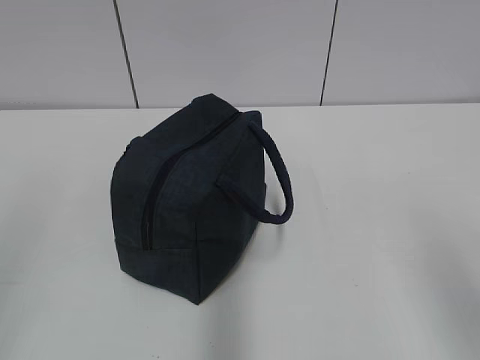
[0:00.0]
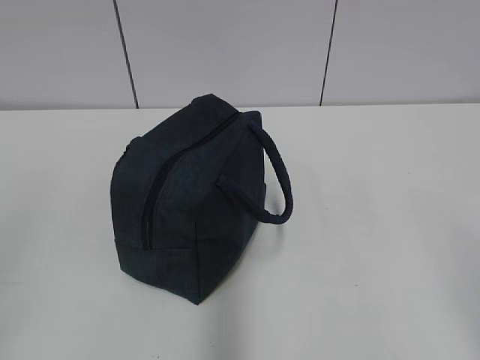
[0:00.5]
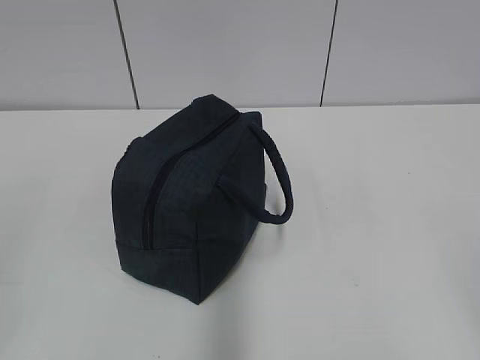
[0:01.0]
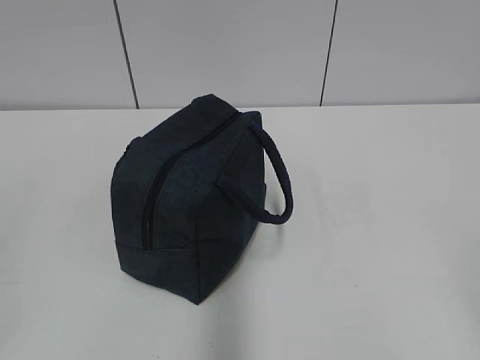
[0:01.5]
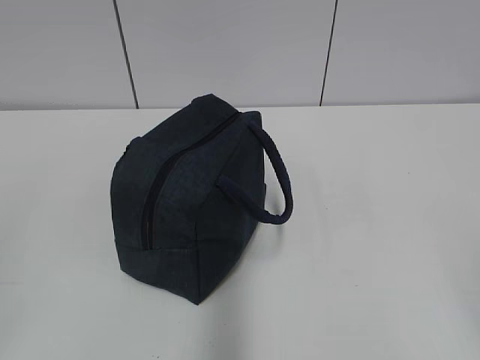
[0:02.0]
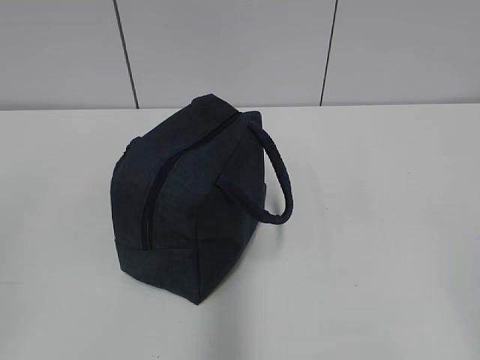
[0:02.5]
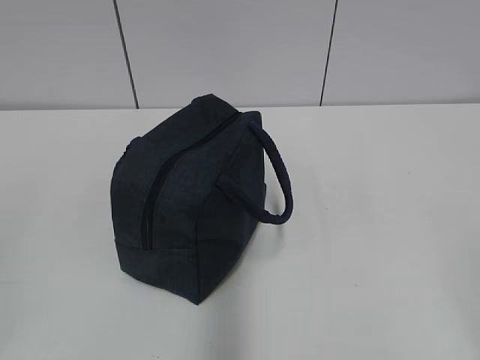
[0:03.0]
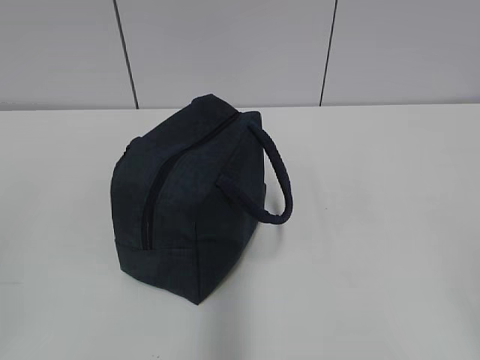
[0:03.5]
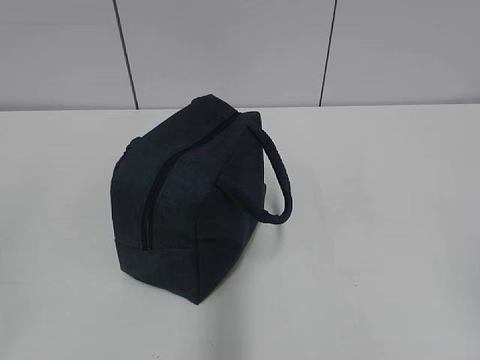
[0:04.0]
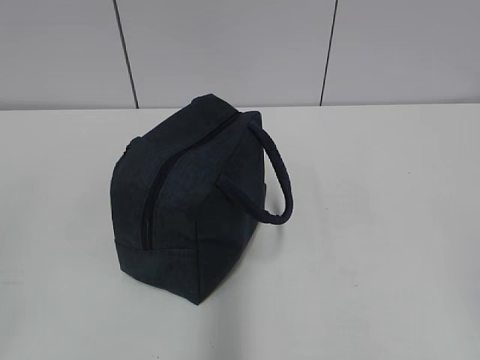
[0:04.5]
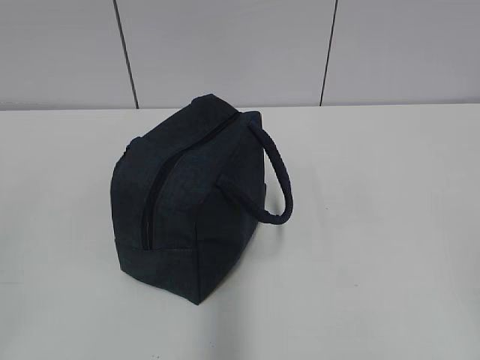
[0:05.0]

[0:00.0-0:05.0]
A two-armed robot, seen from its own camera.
0:00.0 to 0:02.5: The right gripper goes some 10 cm backward.

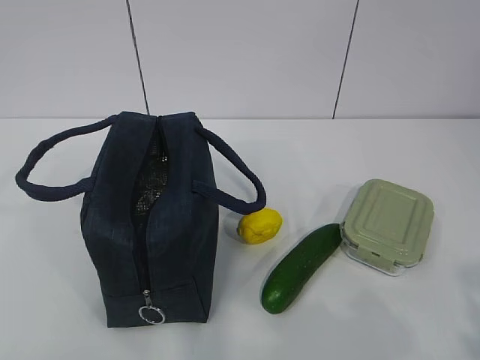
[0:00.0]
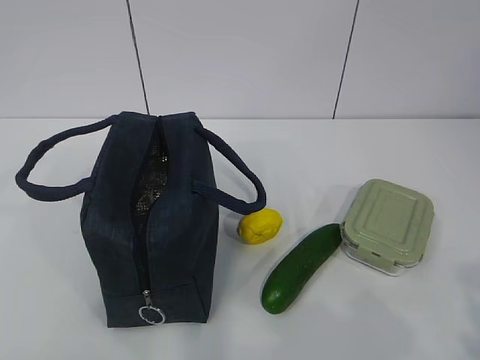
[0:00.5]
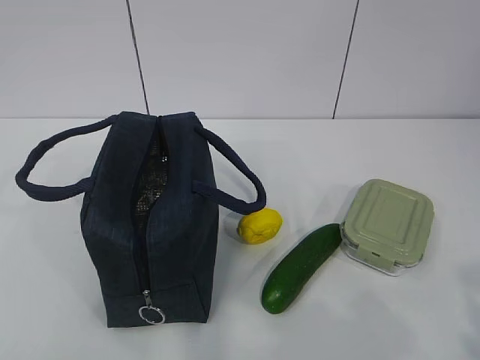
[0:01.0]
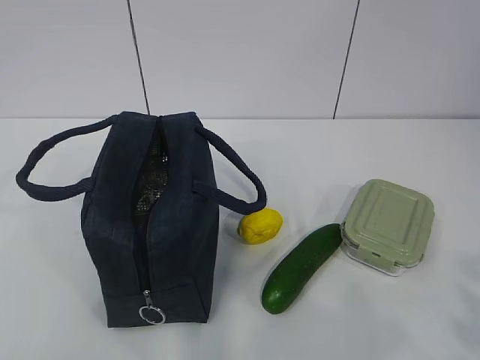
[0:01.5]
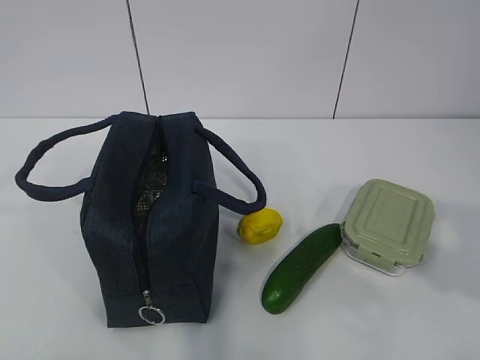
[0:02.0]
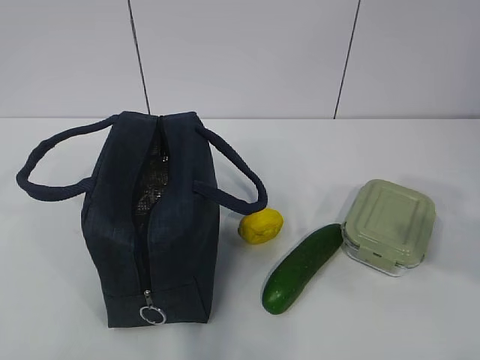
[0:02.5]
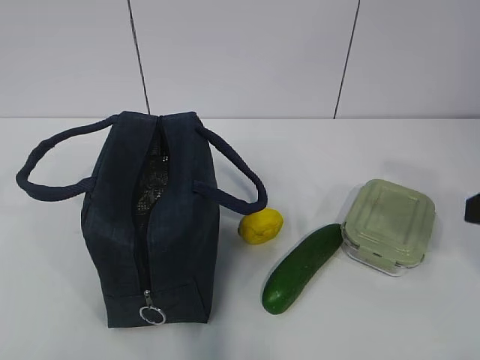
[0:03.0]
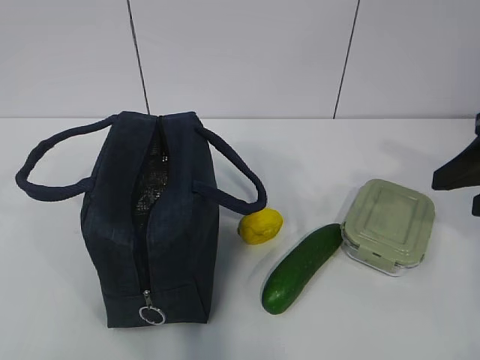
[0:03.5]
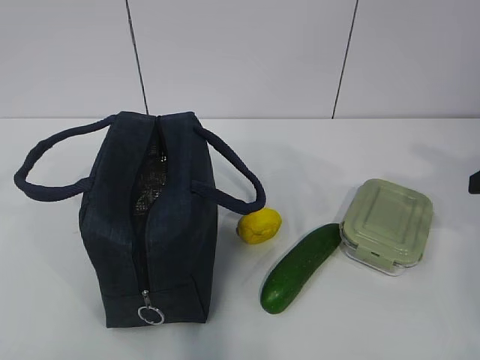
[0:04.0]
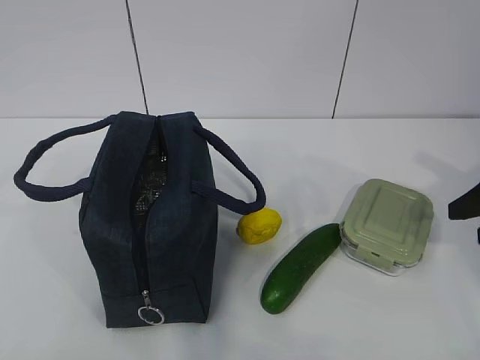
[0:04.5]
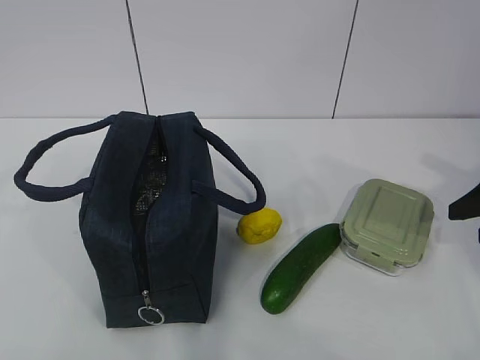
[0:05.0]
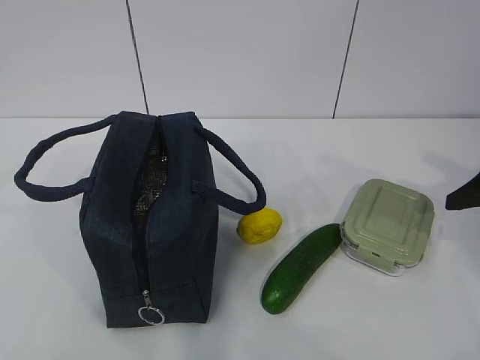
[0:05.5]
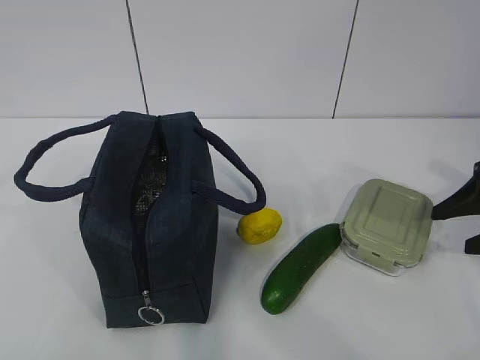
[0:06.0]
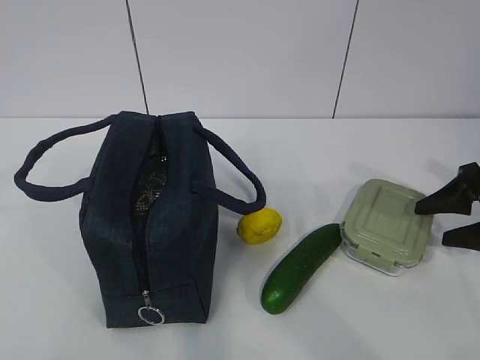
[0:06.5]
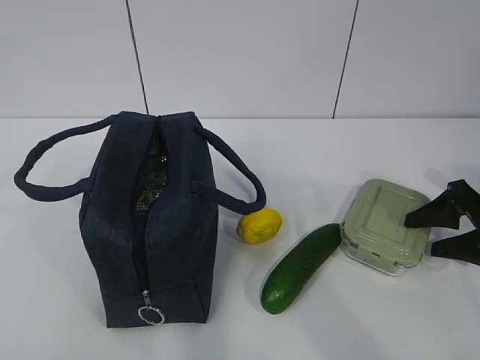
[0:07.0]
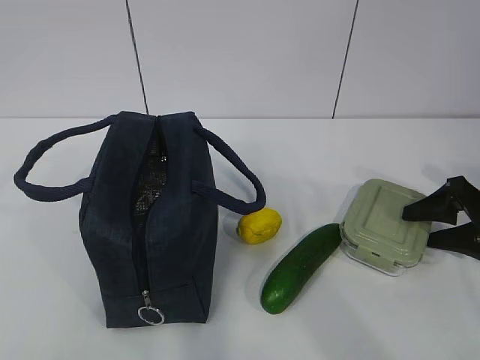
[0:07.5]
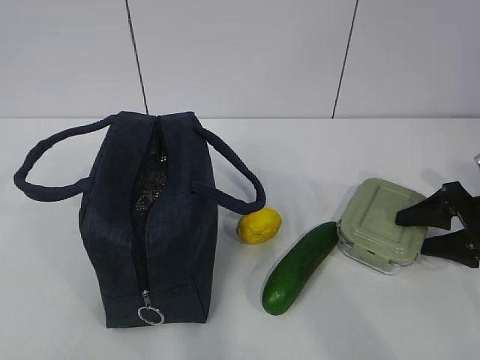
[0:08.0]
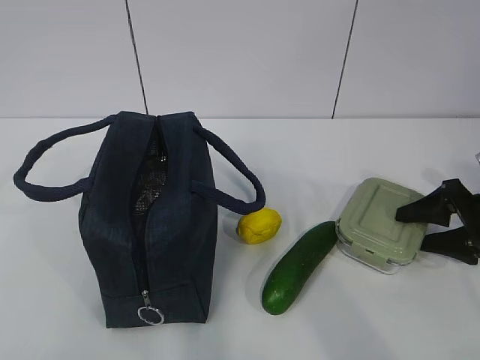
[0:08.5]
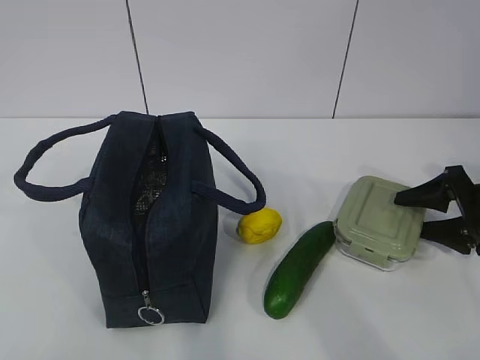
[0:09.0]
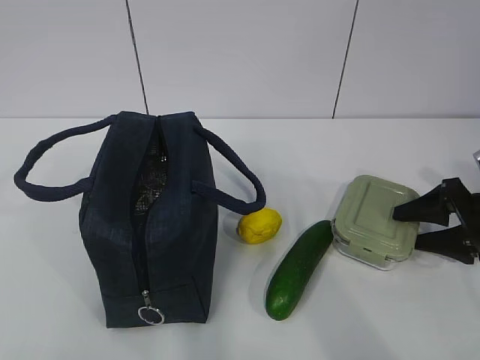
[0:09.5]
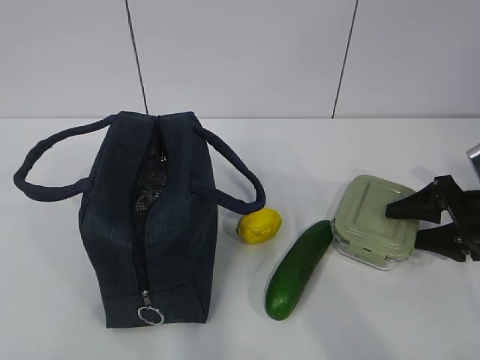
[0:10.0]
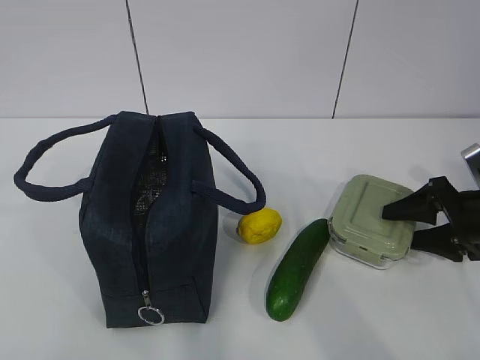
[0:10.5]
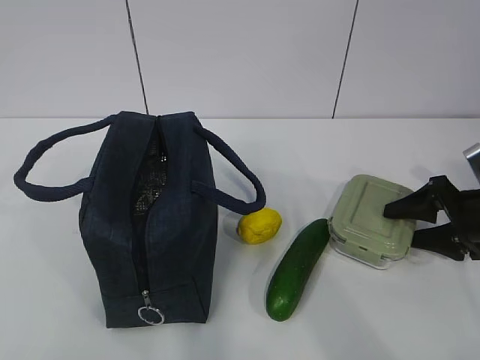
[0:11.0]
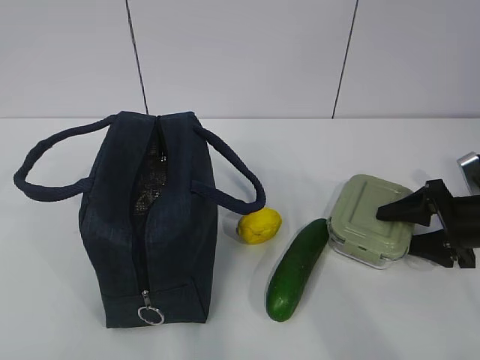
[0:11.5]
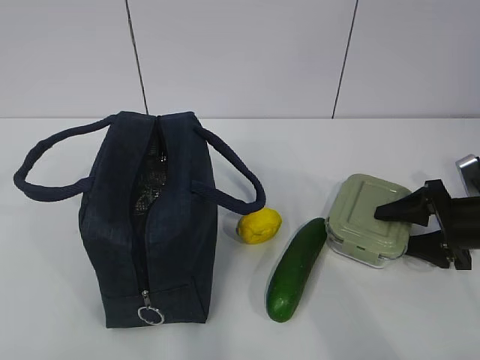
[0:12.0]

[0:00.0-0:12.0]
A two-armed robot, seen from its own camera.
0:02.0 to 0:04.0: The right gripper moves forward, roughly 20 cm.
0:04.0 to 0:06.0: The right gripper heads downward and forward, covering some 10 cm.
0:06.0 to 0:08.0: The right gripper moves downward, approximately 5 cm.
0:08.0 to 0:12.0: The grippers move only a little.

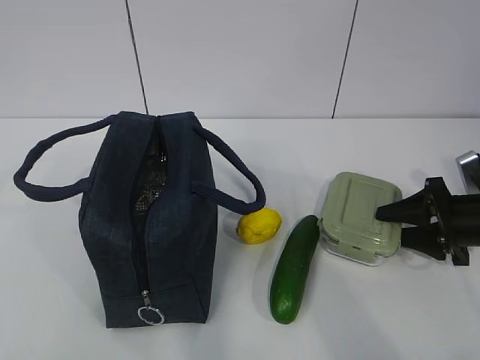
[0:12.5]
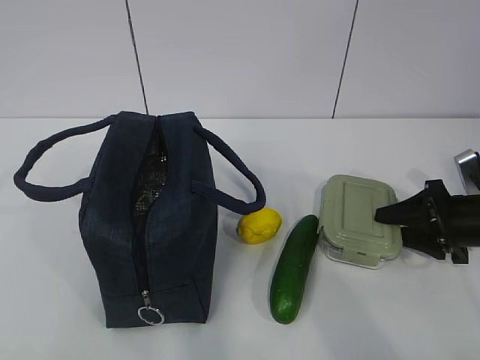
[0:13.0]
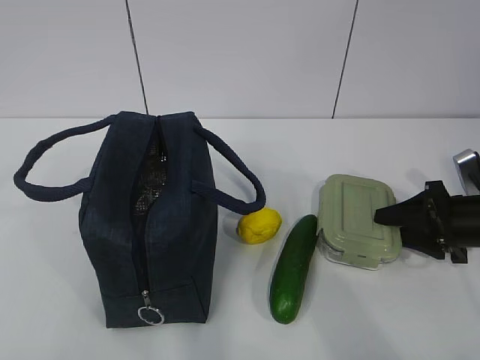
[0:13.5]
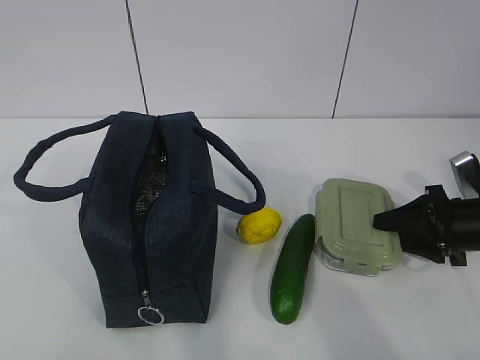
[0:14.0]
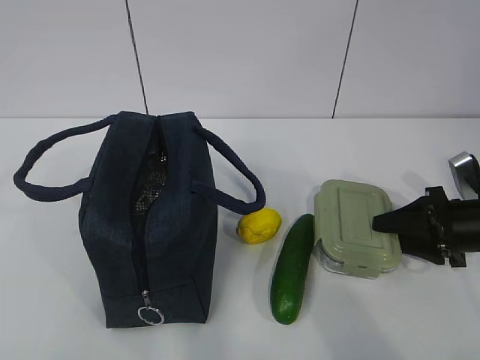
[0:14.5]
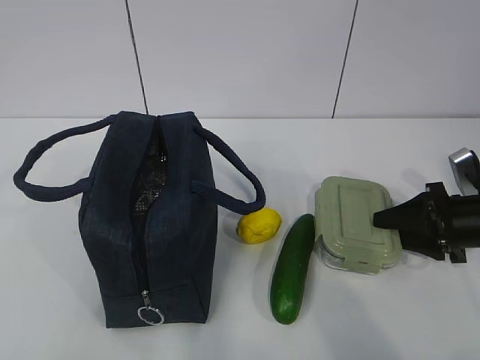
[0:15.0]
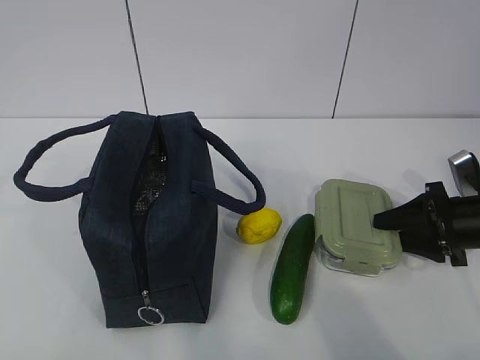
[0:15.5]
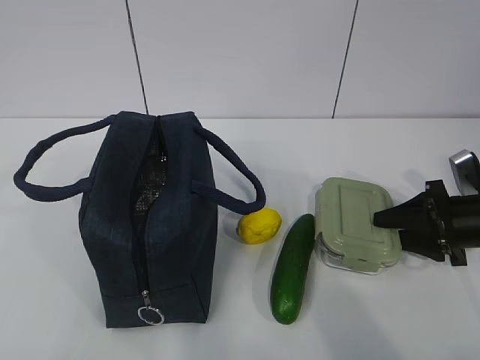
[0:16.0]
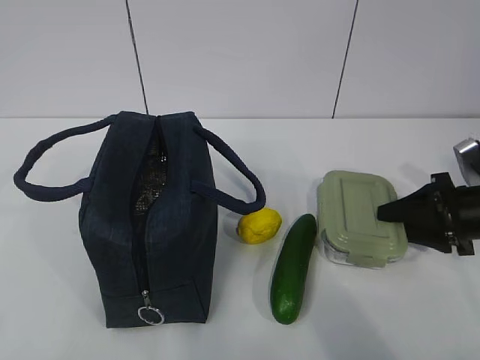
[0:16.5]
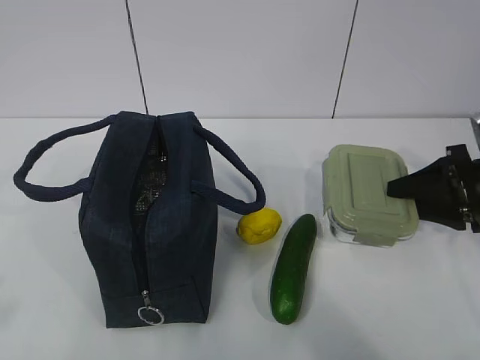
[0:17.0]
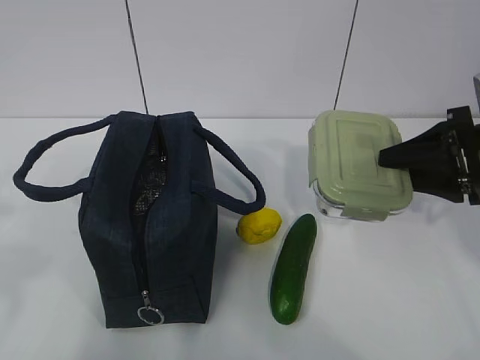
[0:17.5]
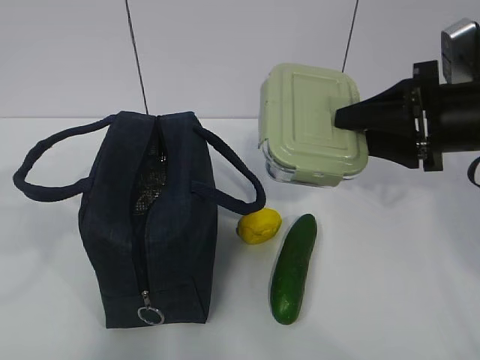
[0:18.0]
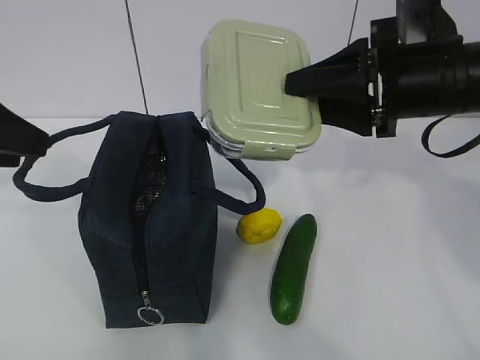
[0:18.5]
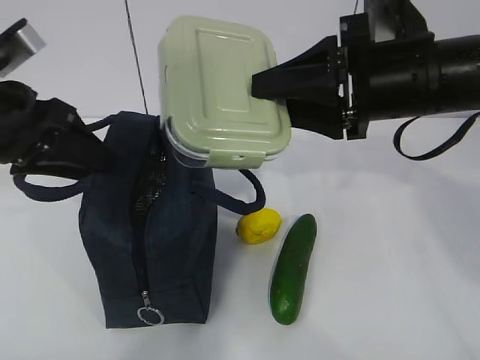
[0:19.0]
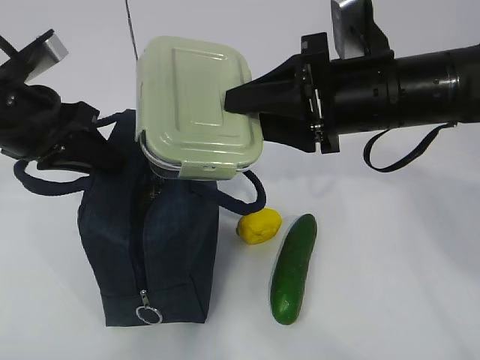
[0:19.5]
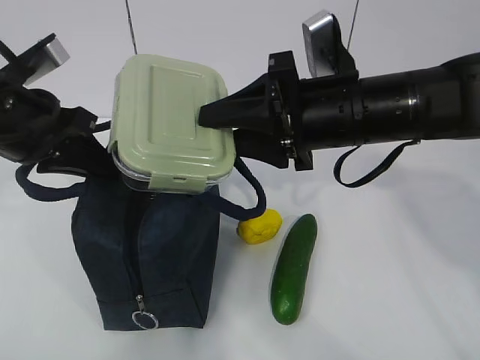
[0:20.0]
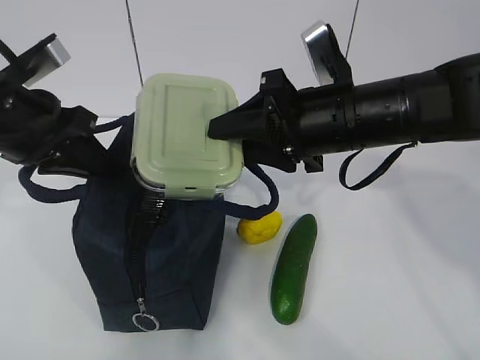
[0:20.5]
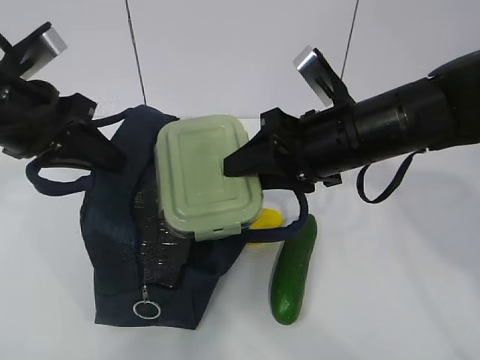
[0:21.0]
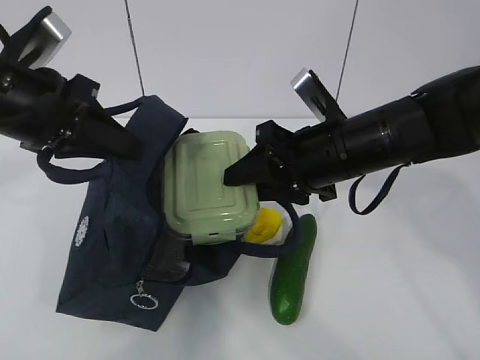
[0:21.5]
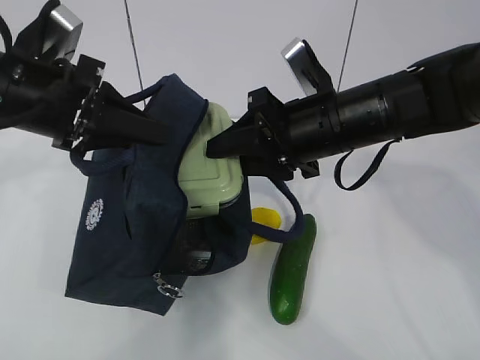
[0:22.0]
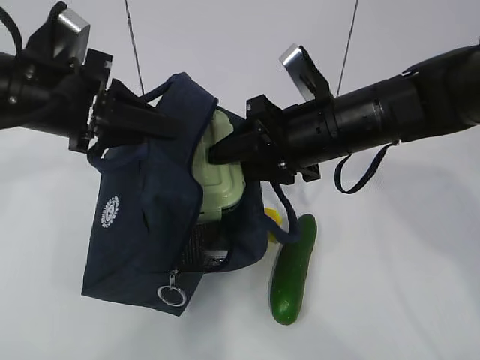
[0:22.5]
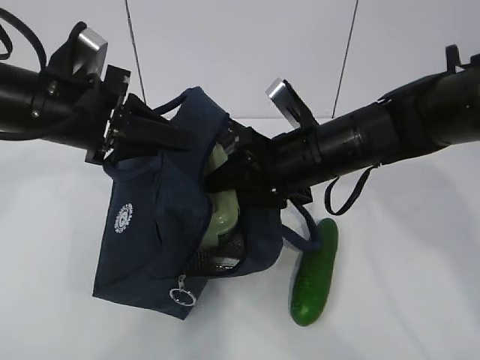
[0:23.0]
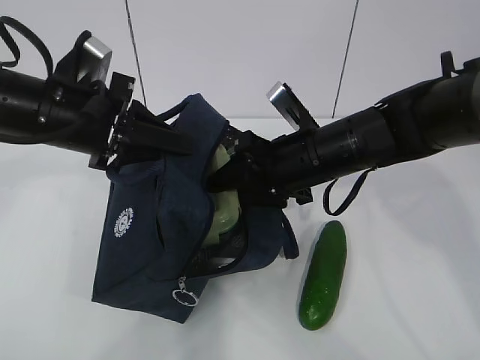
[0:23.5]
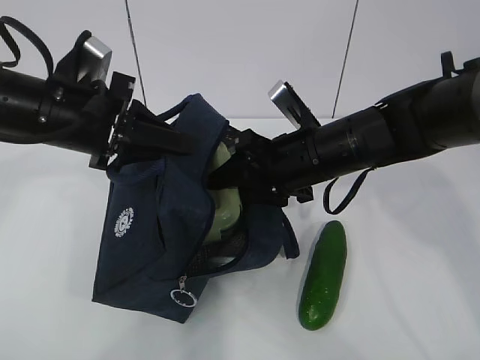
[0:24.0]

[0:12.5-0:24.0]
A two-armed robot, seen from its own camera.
Step, 0:14.0 to 0:16.5: Grab the lunch bag with your left hand.
Step, 0:17.0 to 0:21.0: Place it into the bag with your right hand.
0:12.5 to 0:16.5: There are only small adjustments of the grippers.
0:16.5 to 0:18.5: The left gripper heads forward, covering some 20 cm, while the right gripper moves upward and to the left, roughly 20 cm.
0:18.5 to 0:20.0: The right gripper goes roughly 10 cm to the left, while the left gripper shifts approximately 10 cm forward and downward, and closes.
0:22.0 to 0:24.0: The right gripper ends up some 5 cm from where it was.
